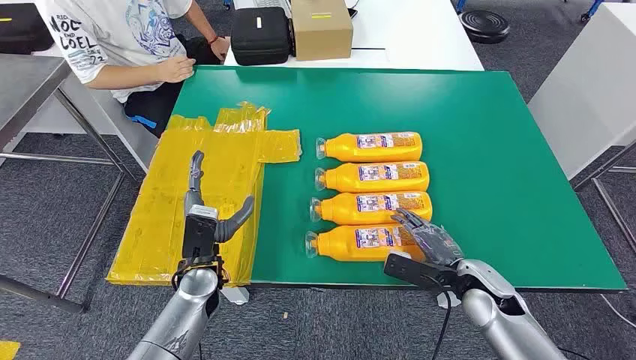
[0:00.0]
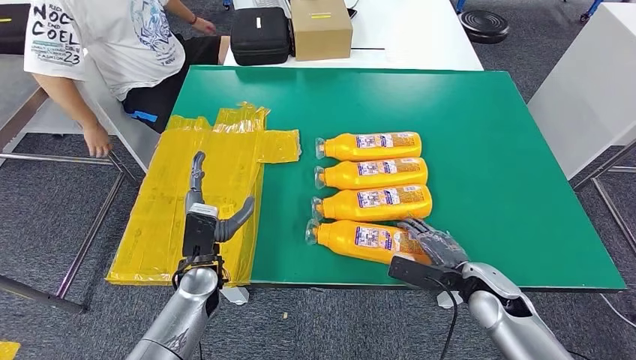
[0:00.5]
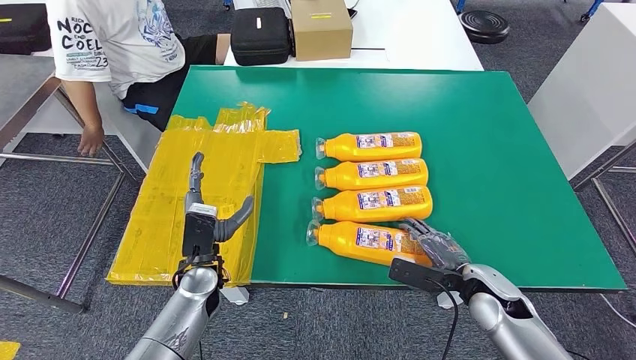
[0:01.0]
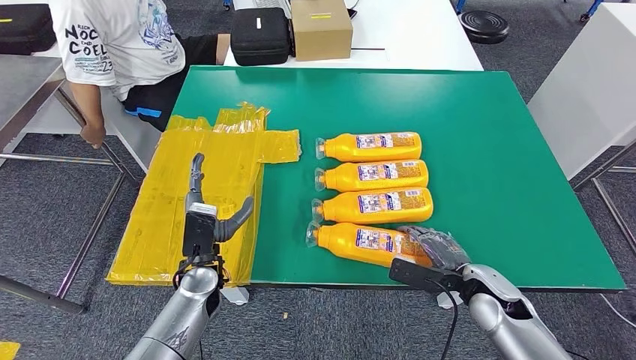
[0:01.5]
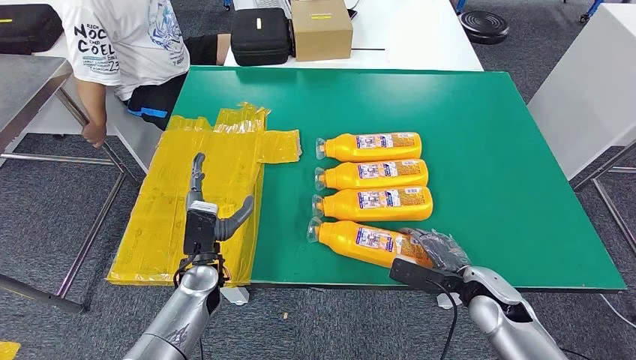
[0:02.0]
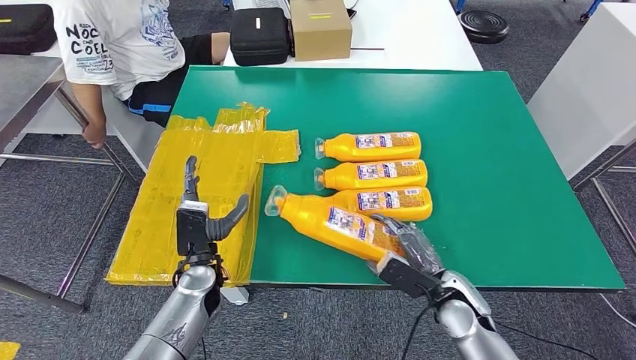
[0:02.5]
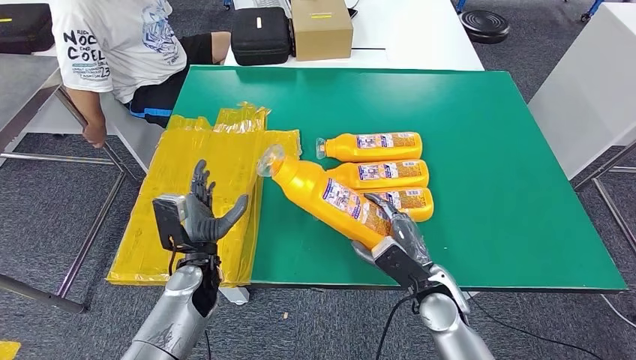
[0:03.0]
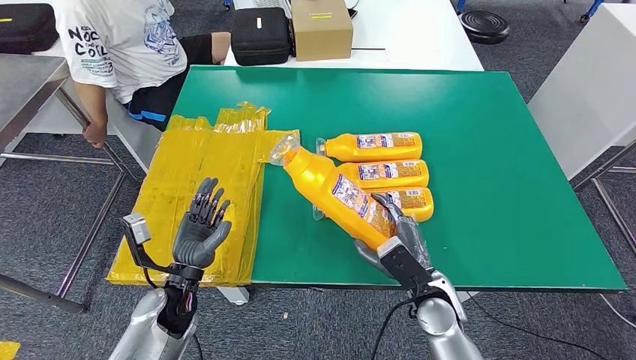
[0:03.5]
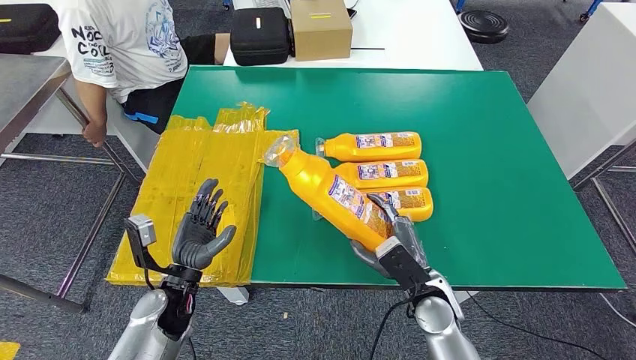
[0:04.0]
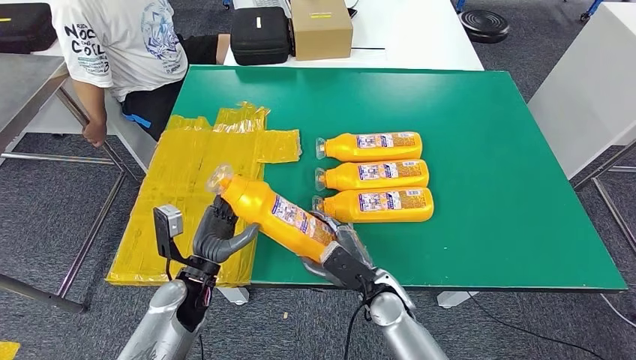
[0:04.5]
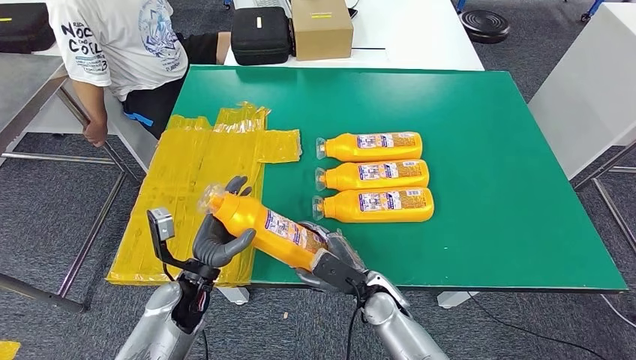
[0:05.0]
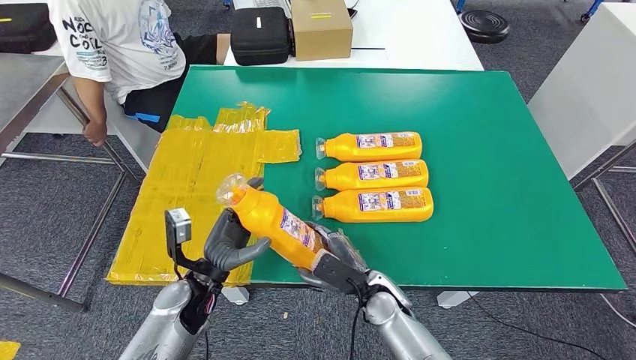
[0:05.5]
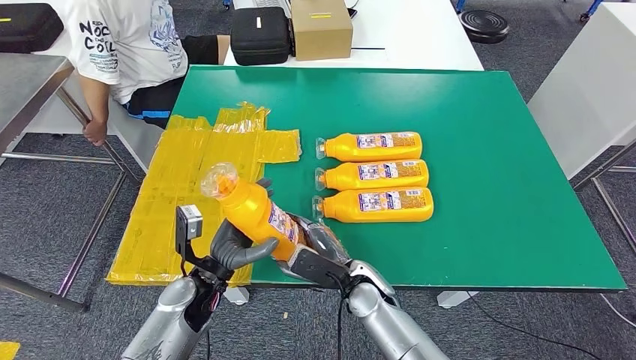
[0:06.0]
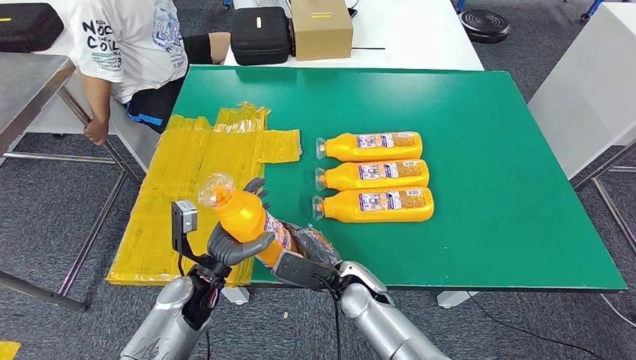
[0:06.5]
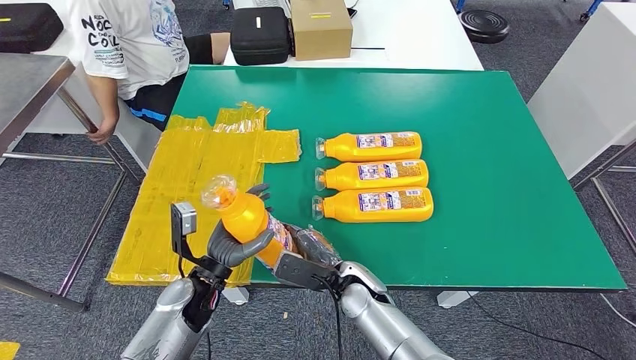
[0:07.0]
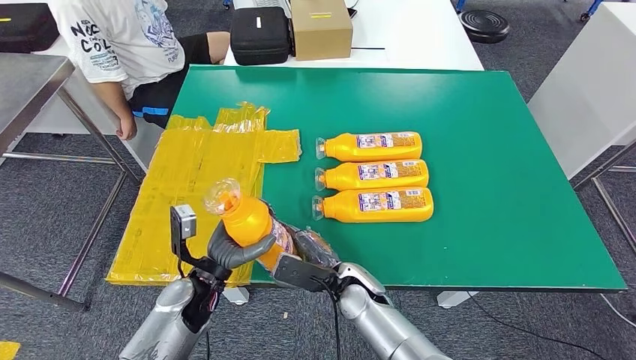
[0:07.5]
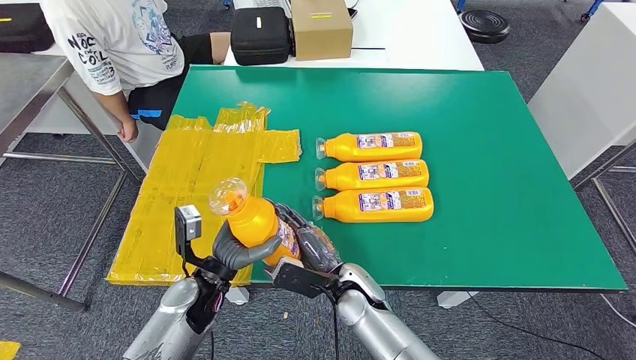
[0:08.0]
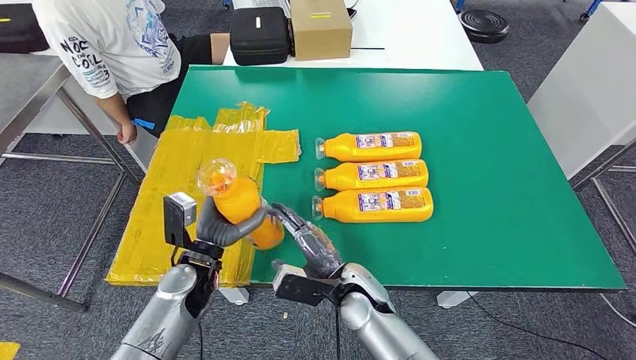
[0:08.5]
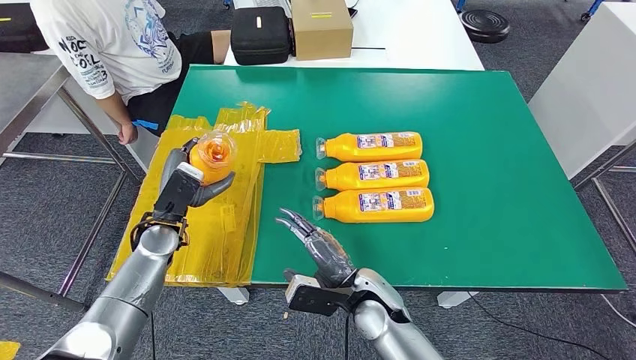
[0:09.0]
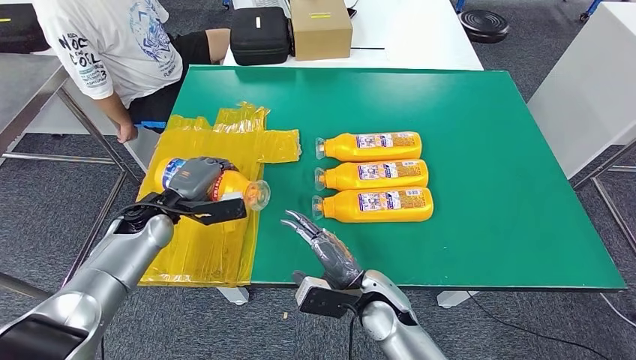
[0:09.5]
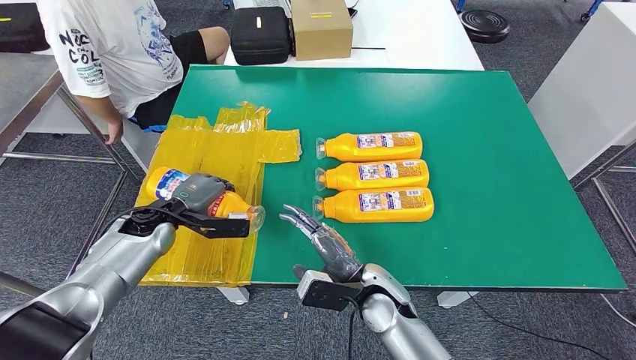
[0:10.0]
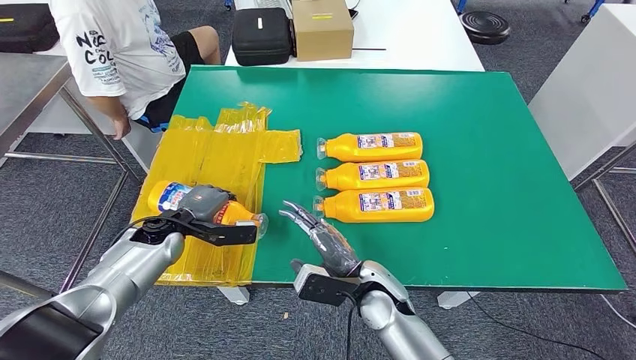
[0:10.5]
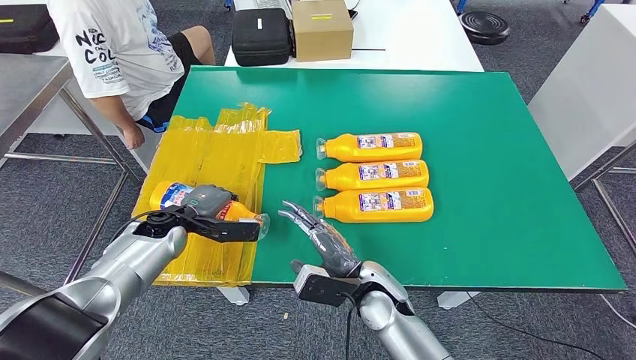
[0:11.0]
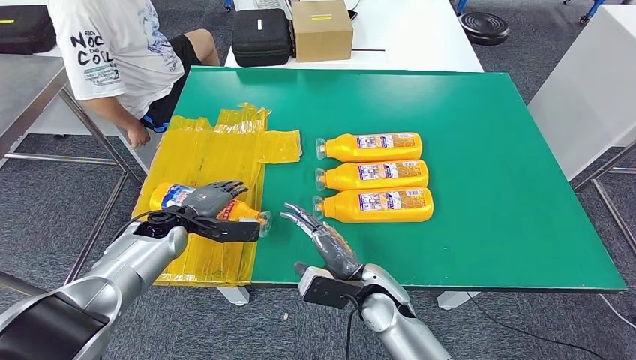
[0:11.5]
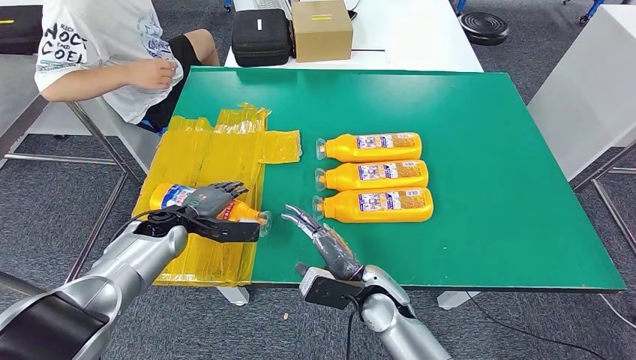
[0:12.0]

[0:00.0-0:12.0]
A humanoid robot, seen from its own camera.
Step, 0:00.0 to 0:04.0: Take the fast-moving consumer goods bottle from the table.
0:02.0 to 0:04.0: The right hand heads to the left, covering approximately 10 cm; the left hand moves approximately 5 cm.
0:04.0 to 0:06.0: The left hand shifts by approximately 5 cm; the right hand shifts approximately 10 cm to the left.
0:06.0 to 0:08.0: The hands make only small movements.
0:08.0 to 0:10.0: The left hand goes some 15 cm forward and to the left.
0:10.0 to 0:12.0: The hands move only a little.

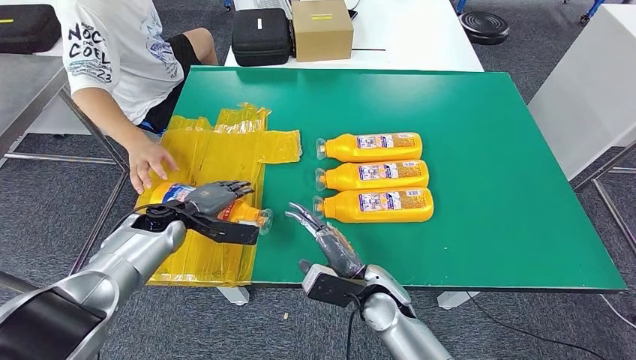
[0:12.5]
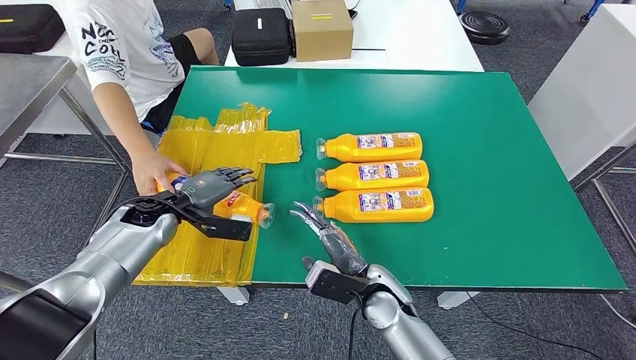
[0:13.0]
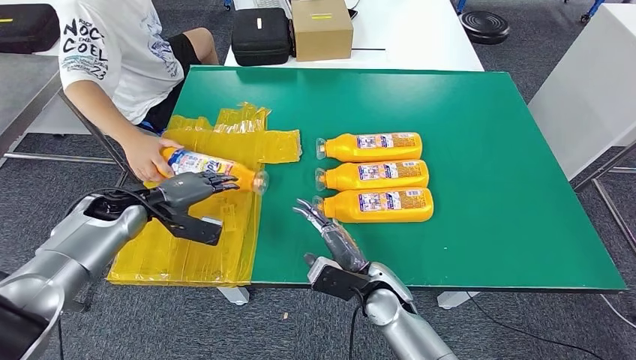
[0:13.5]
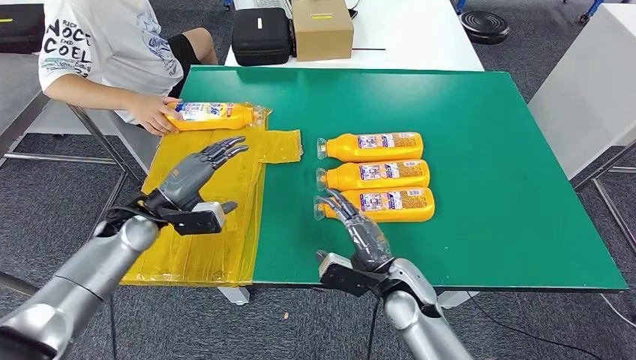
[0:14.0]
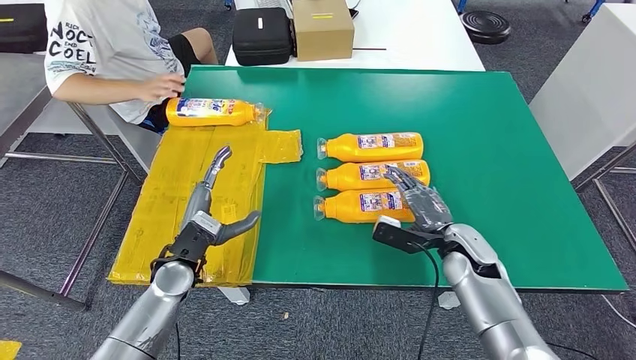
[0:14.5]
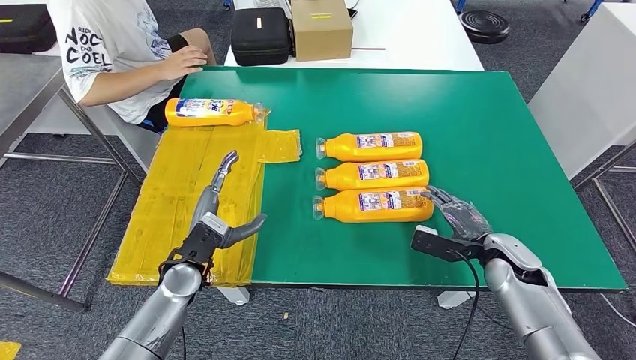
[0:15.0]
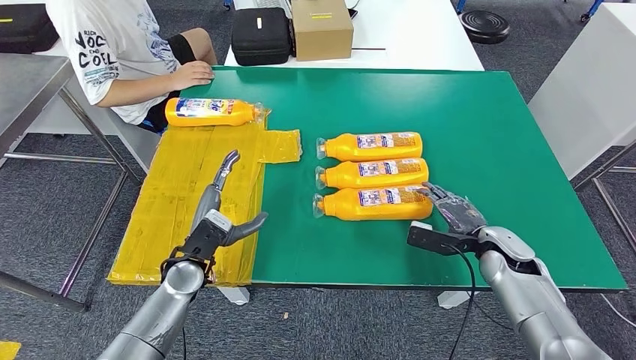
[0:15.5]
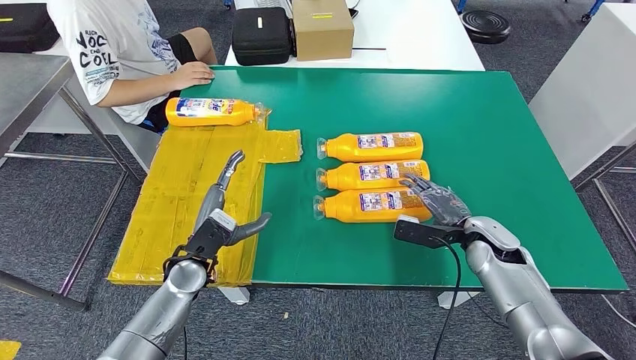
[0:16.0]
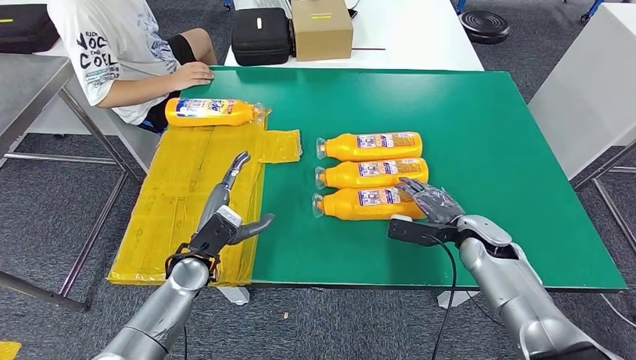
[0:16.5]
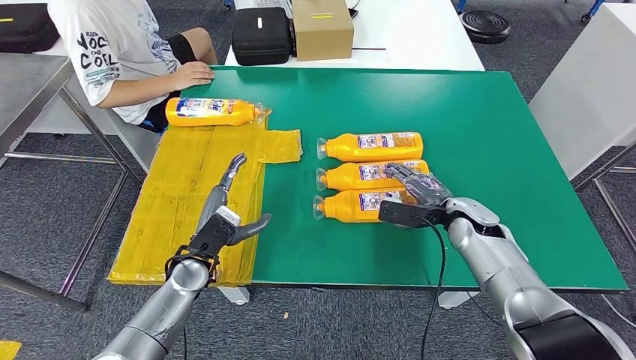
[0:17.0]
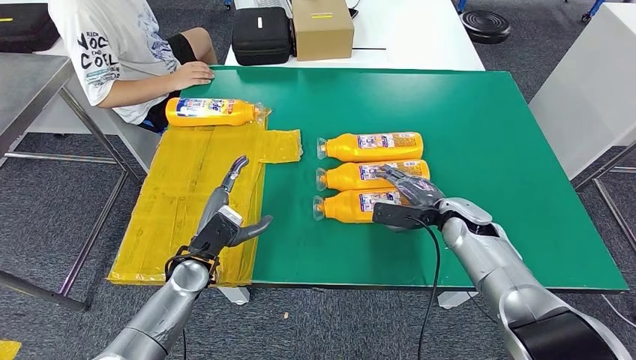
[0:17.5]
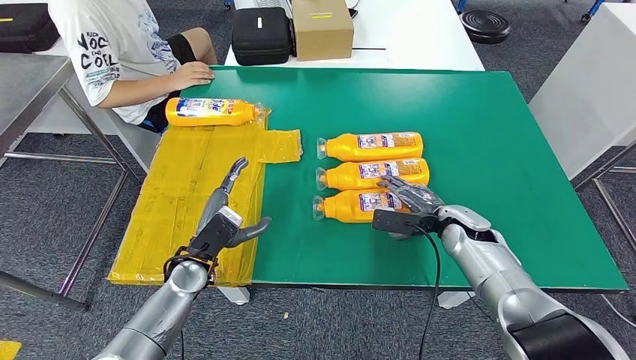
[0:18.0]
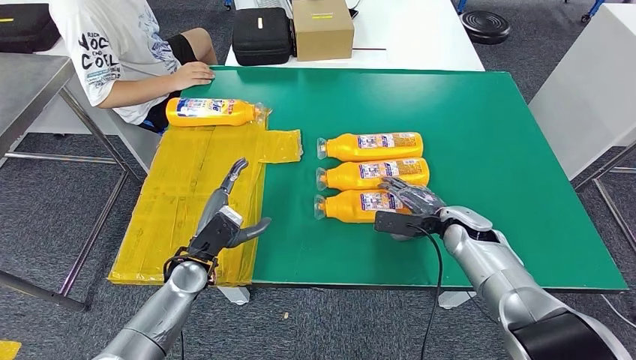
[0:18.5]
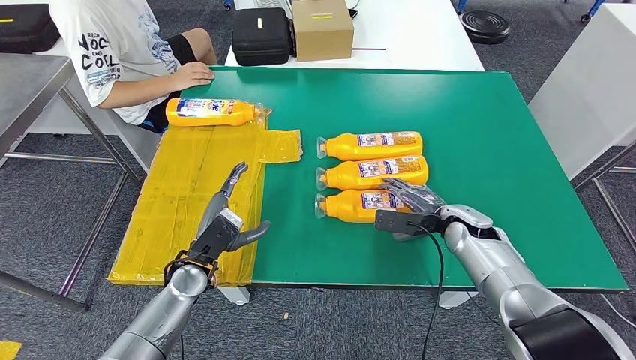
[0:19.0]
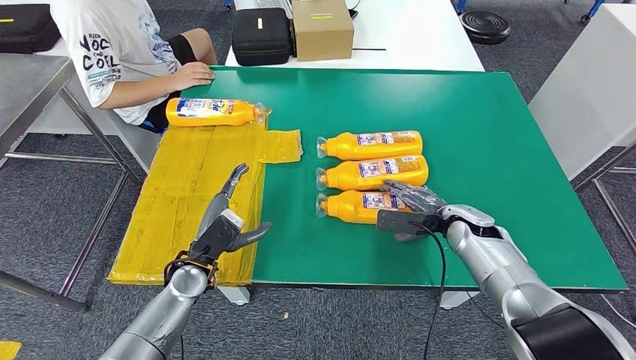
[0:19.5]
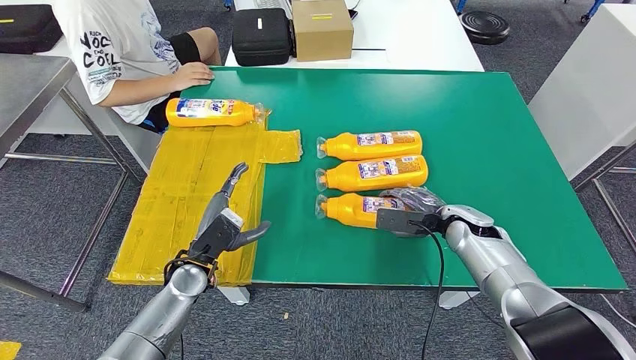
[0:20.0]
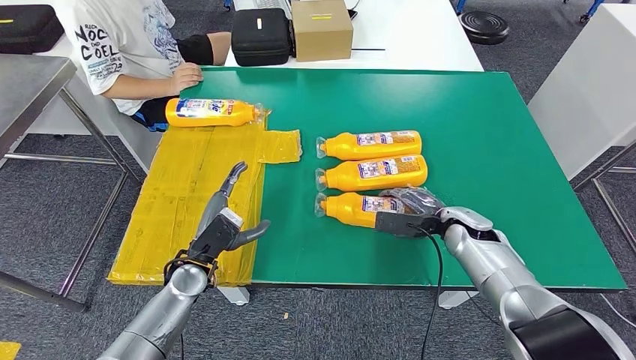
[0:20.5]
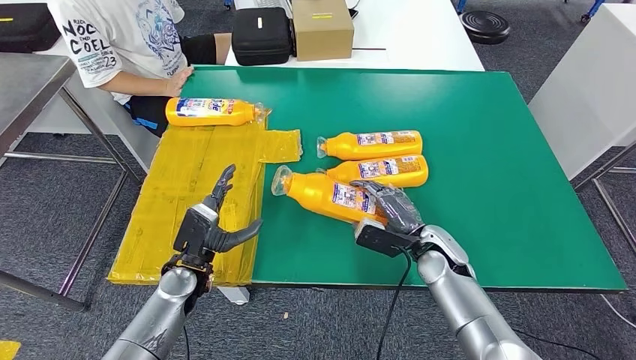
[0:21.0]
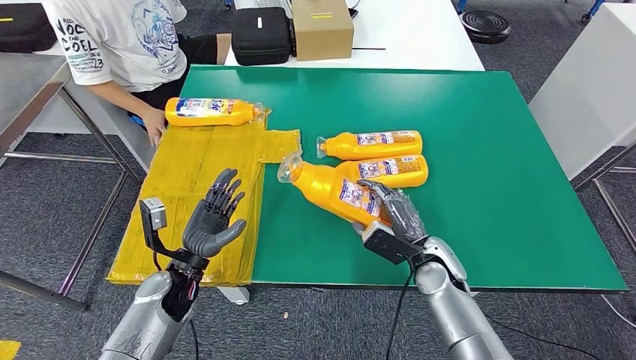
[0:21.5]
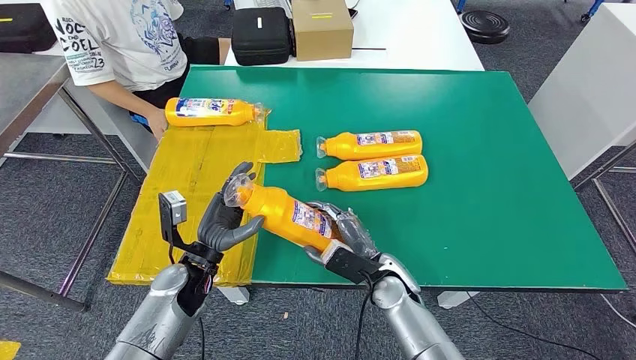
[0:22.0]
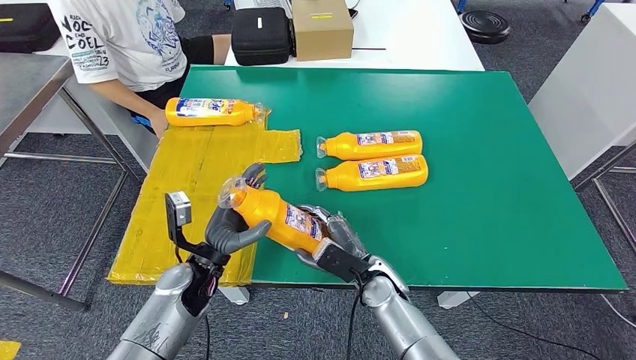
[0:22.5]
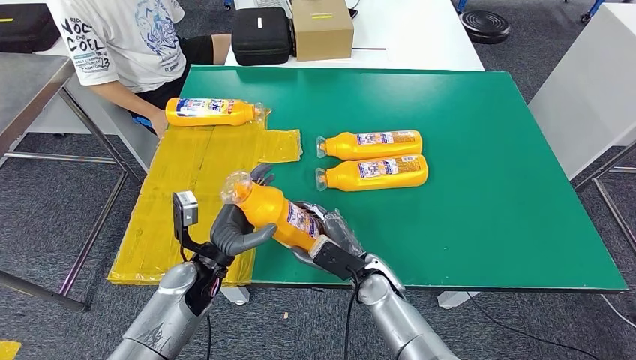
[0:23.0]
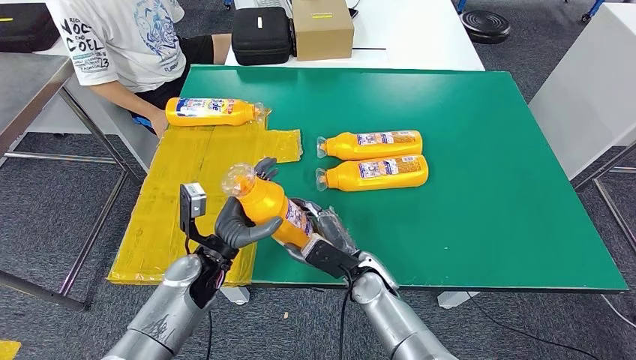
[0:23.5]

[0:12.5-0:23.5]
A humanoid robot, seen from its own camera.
Step, 0:20.0 to 0:21.5: Pick up the fast-moving consumer goods bottle from the table.
0:16.0 to 0:20.0: The hands make only small movements.
0:21.5 to 0:23.5: The left hand is displaced to the right by some 5 cm; the right hand moves to the left, approximately 10 cm.
